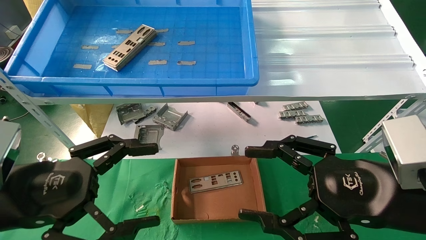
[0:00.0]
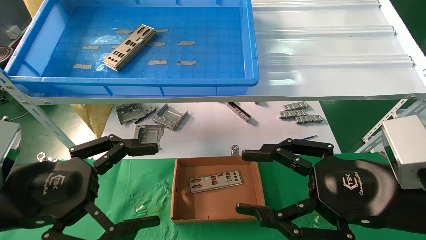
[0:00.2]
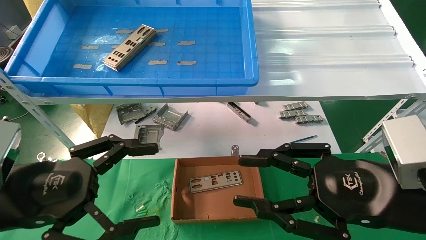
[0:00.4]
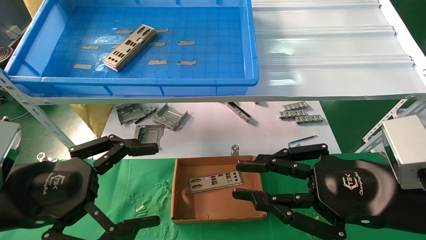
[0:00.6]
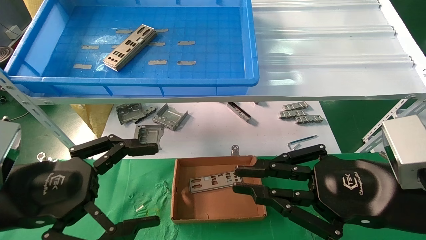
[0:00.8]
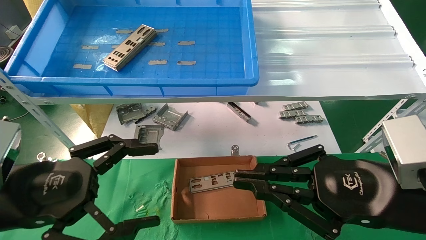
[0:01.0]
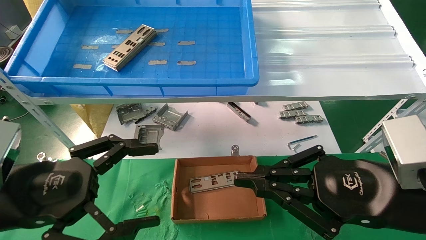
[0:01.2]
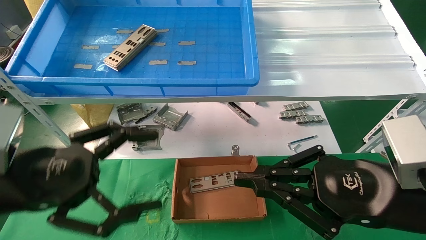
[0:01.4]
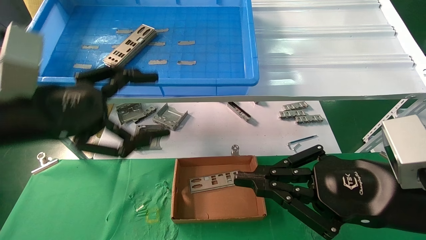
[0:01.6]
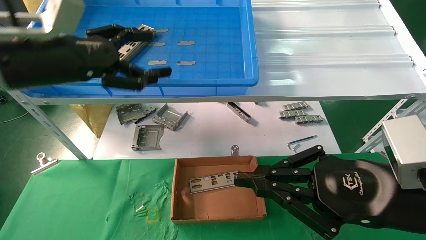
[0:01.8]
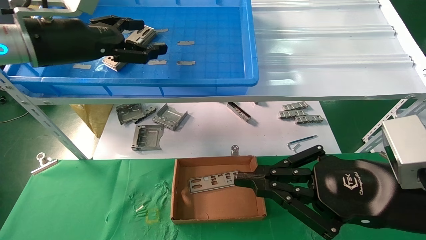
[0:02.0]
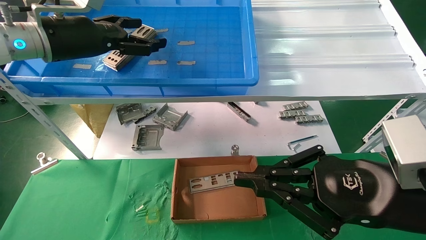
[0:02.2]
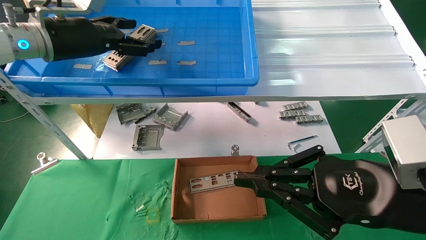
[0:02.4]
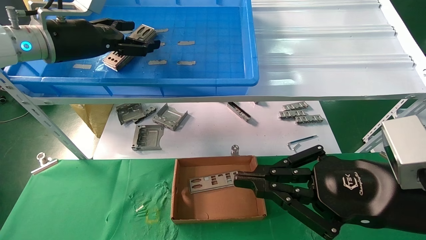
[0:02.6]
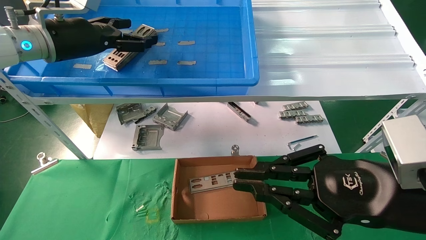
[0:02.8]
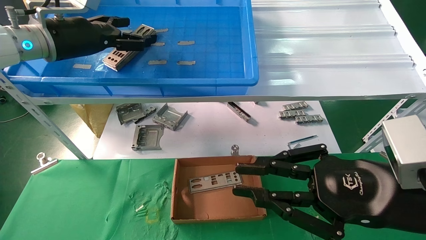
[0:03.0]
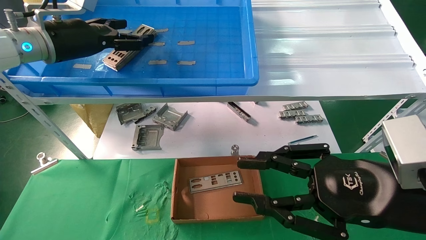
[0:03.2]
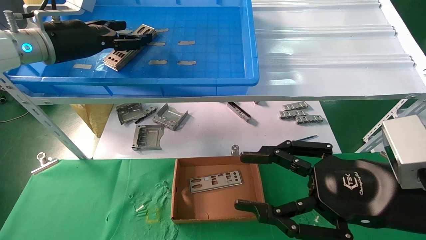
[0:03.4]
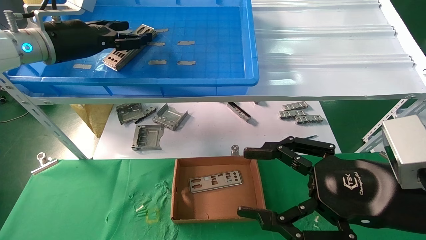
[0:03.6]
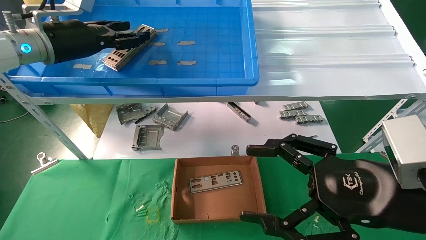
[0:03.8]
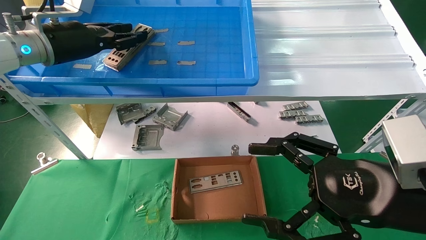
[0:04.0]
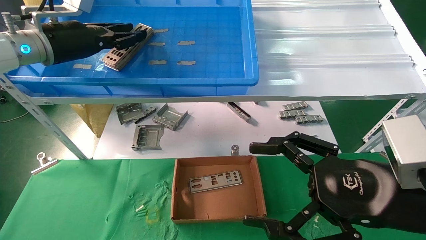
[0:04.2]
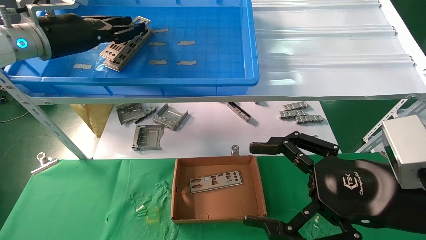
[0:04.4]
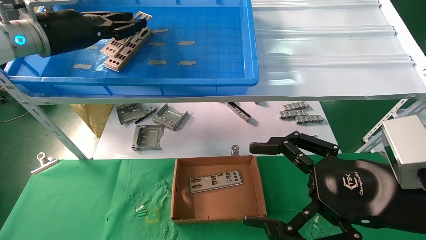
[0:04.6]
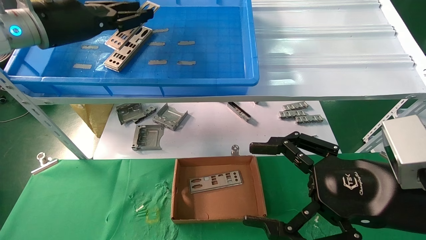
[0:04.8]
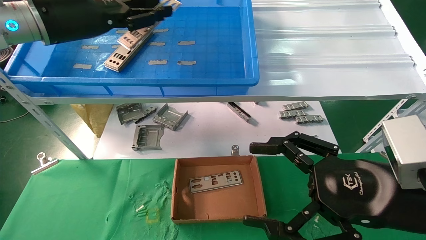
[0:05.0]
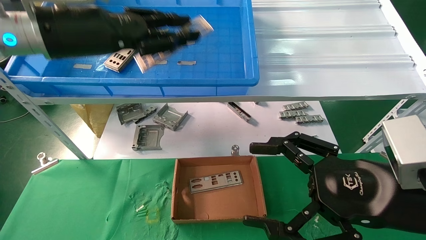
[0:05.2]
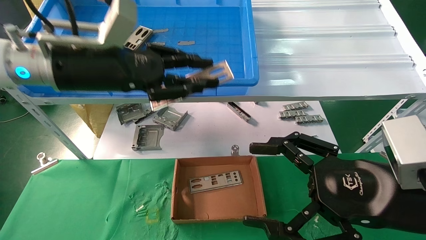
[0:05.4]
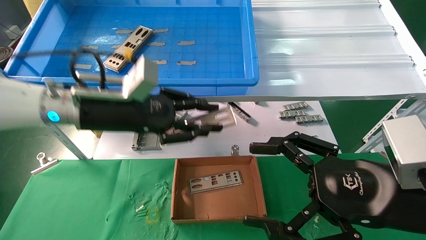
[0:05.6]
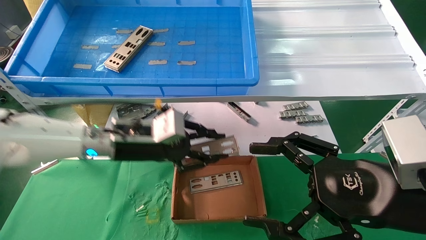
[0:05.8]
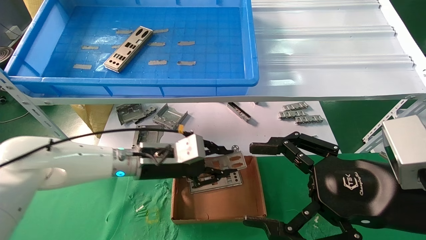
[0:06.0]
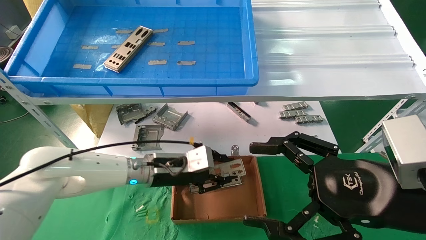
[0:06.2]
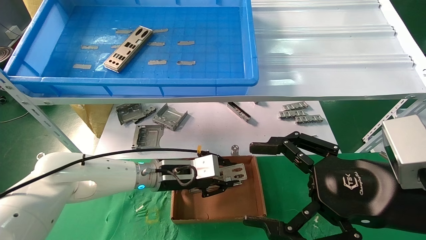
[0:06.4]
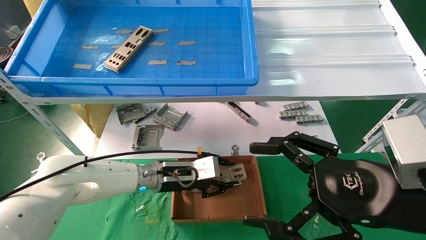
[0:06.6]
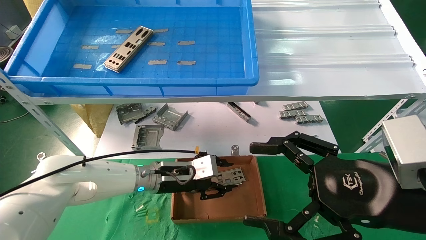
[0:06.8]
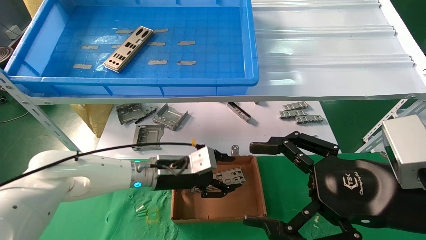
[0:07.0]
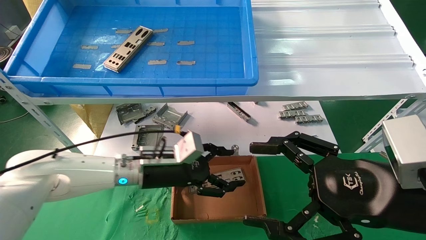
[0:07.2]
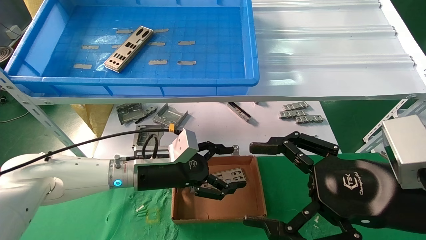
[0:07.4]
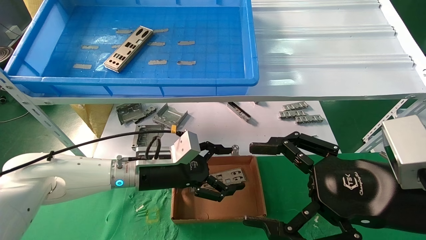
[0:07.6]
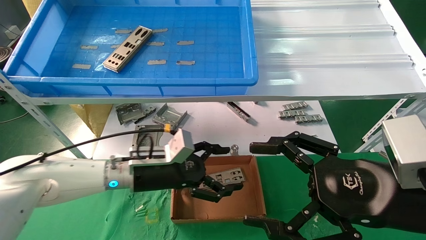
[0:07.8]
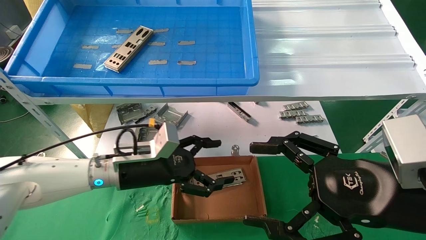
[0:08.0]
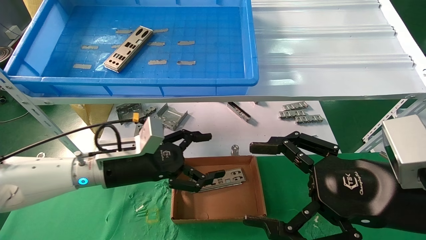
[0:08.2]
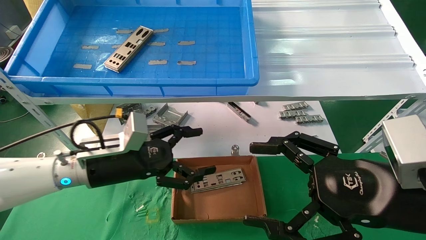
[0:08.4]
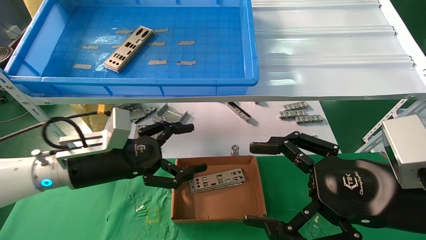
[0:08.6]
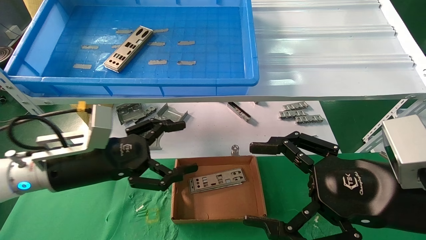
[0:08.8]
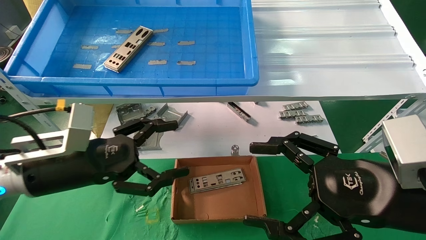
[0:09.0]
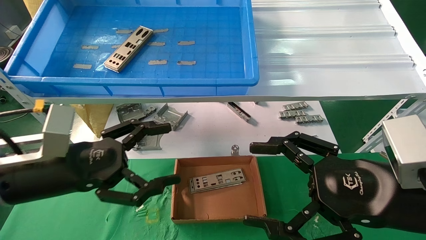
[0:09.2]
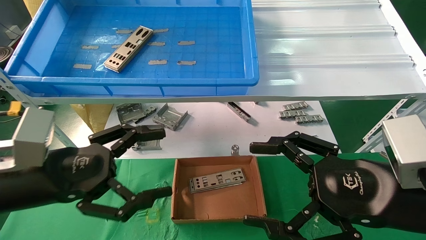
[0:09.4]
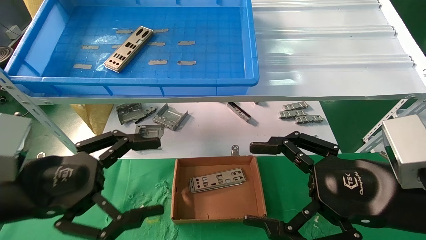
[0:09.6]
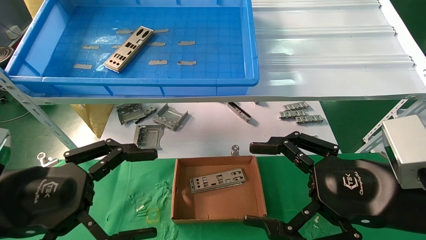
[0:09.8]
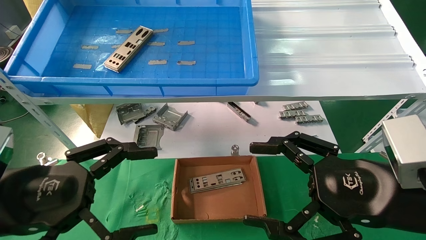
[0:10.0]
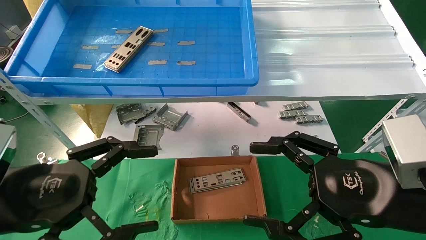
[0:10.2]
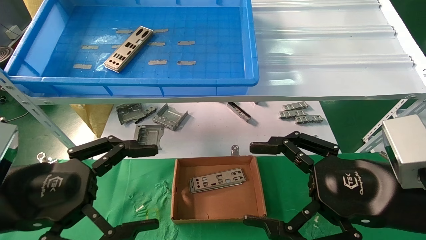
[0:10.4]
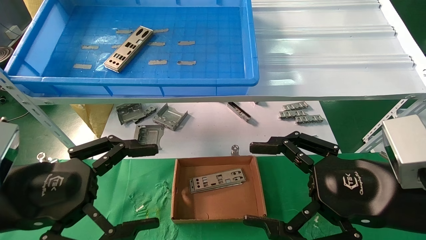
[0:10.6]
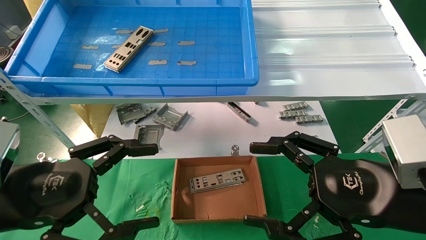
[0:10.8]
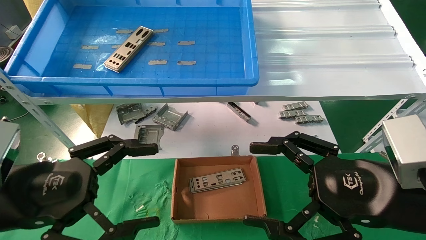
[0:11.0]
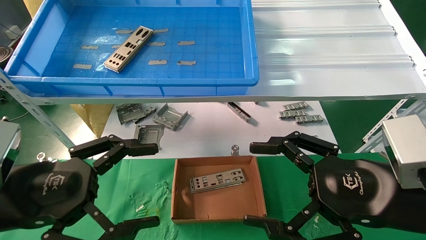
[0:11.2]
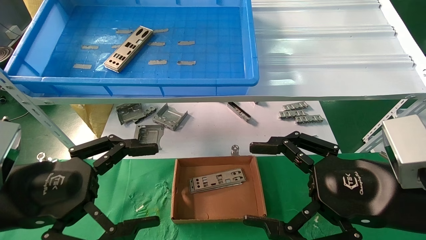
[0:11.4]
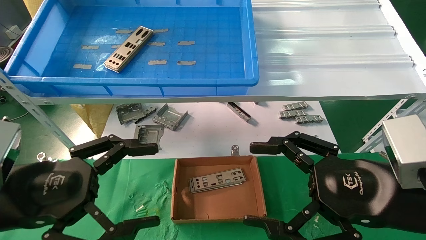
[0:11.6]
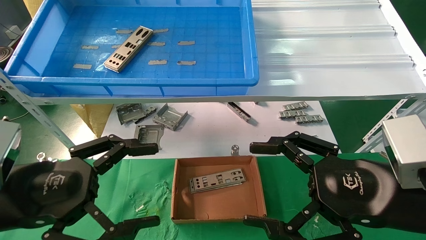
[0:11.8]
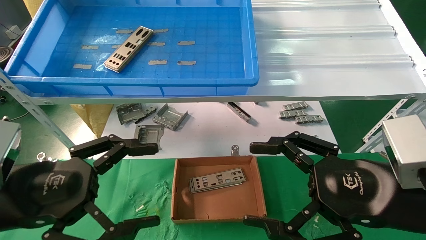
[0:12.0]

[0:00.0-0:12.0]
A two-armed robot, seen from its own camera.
Task of the whole recording: pick up the parts on the tray and put them in the cardboard box.
Step, 0:01.8 to 0:04.4: Pick up the IO bracket from the container box.
Step, 0:04.6 to 0:06.8: Place the IO bracket into the ingredient slot.
0:00.0 to 0:01.6: The left gripper heads upward and forward, covering about 10 cm. The right gripper closes its fingers.
0:01.6 to 0:03.0: The left gripper is displaced forward and upward by about 20 cm.
0:03.0 to 0:04.4: The left gripper closes; the right gripper opens up.
0:04.4 to 0:06.0: The left gripper shifts roughly 30 cm downward and to the right.
0:06.0 to 0:07.6: The left gripper opens its fingers.
0:07.6 to 0:09.0: The left gripper moves to the left, backward and upward, some 15 cm.
0:09.0 to 0:10.4: The left gripper moves backward, about 10 cm.
0:10.4 to 0:12.0: Both grippers stay about where they are.

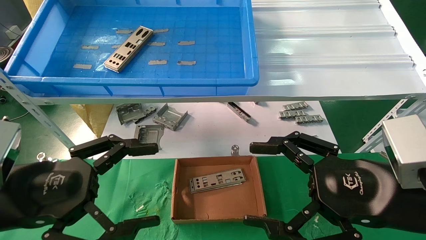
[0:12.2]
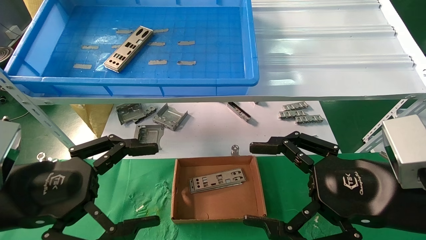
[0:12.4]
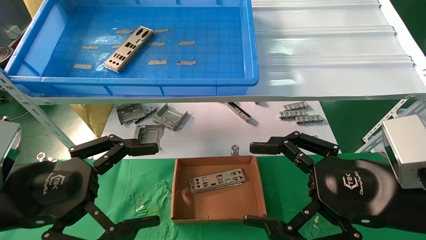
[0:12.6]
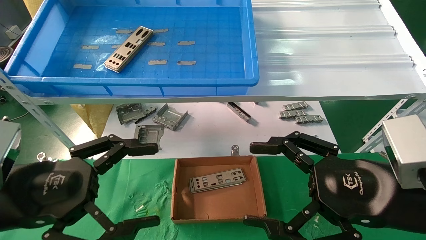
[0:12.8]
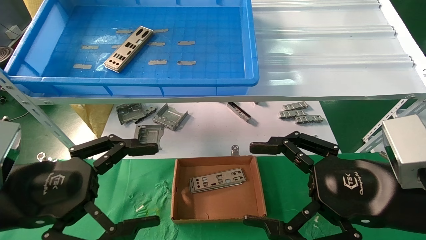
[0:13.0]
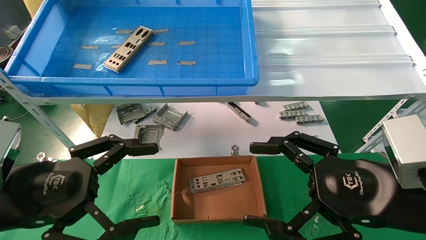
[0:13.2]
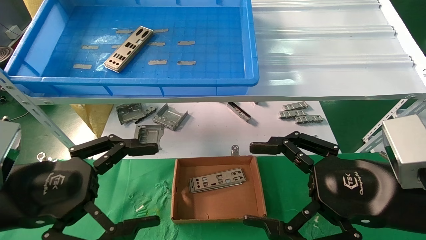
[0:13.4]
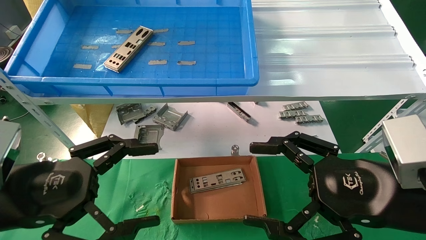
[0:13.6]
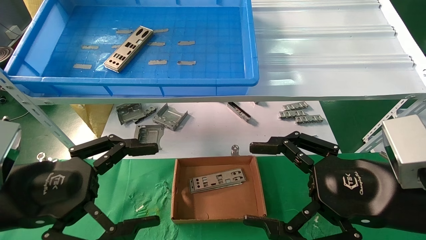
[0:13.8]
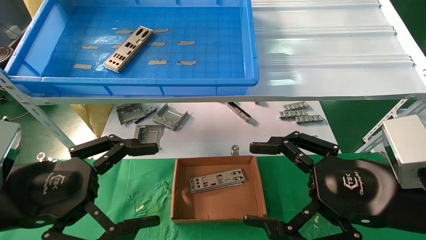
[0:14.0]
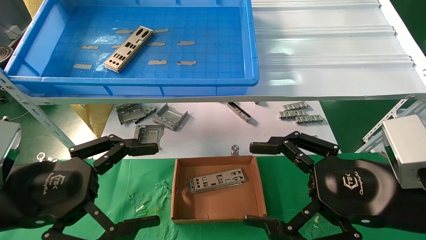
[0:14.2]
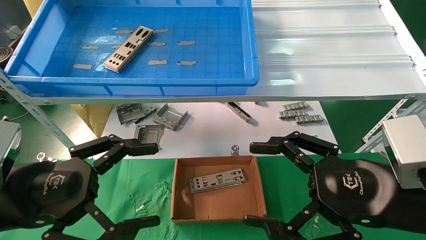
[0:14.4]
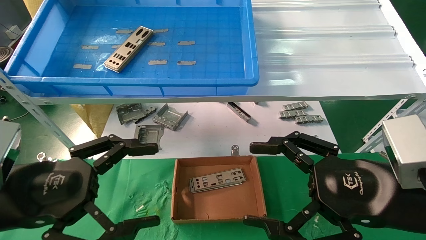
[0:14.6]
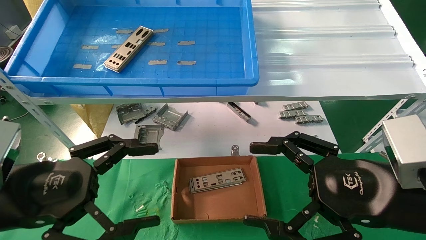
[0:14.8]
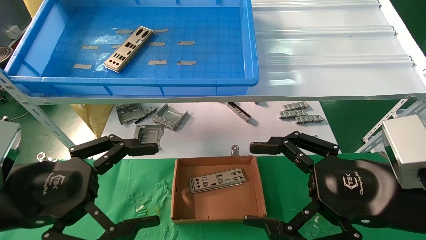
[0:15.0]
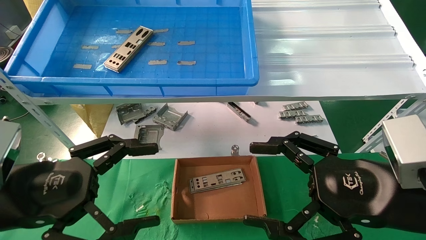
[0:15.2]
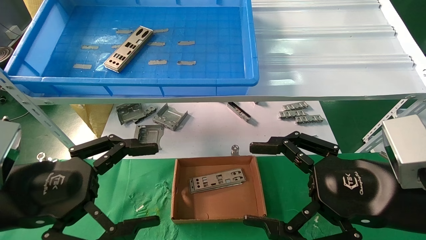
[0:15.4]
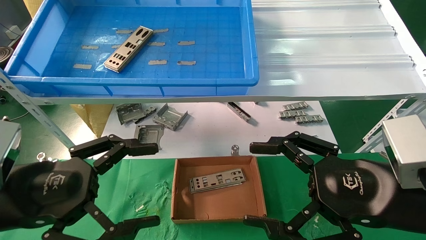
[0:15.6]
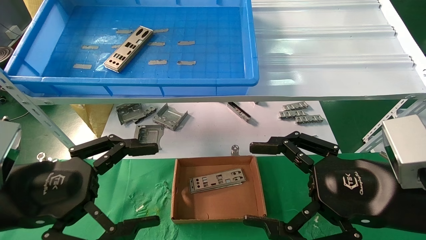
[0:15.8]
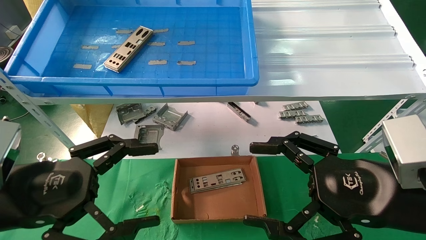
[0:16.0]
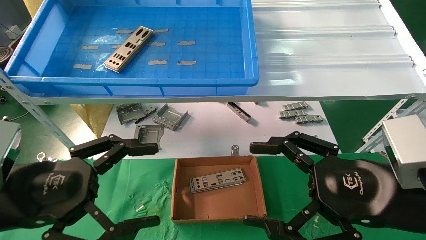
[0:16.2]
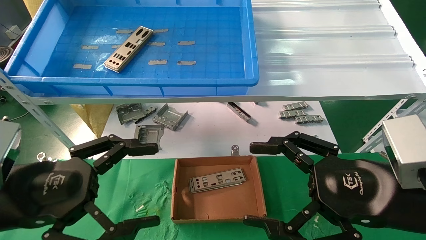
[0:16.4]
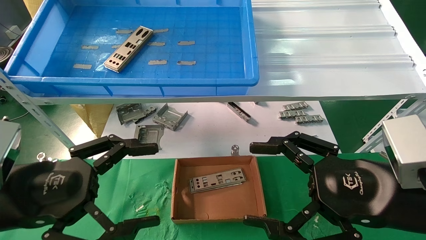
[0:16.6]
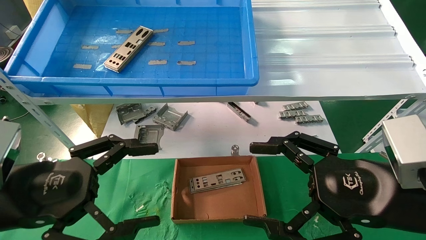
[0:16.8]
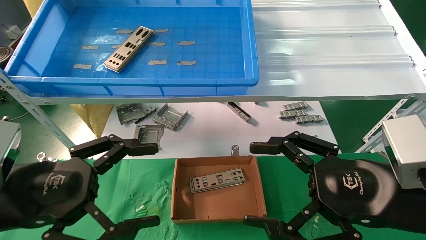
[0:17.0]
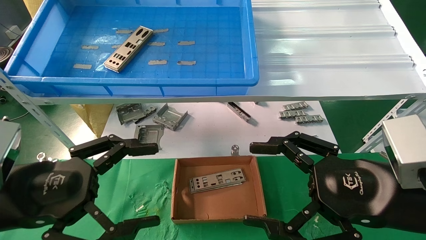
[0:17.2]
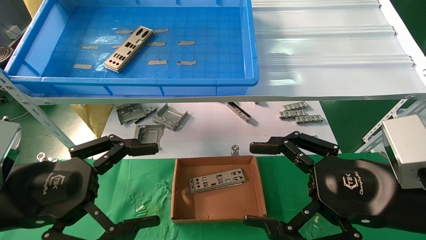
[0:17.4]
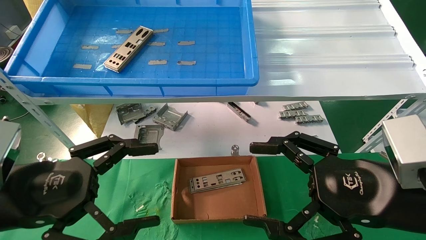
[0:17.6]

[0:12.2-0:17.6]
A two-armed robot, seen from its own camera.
Task of the whole recording: pick up the parts on the tray and put them in the cardboard box.
0:12.2 to 0:17.6: Neither gripper changes place.
